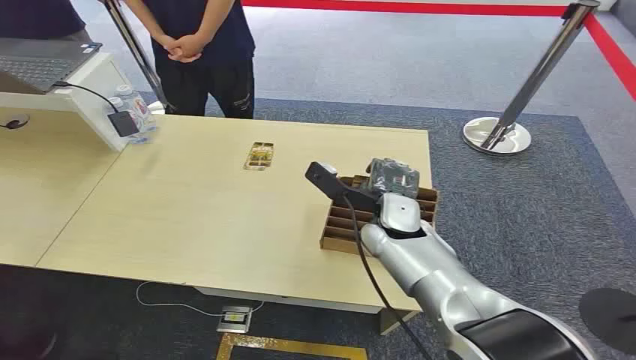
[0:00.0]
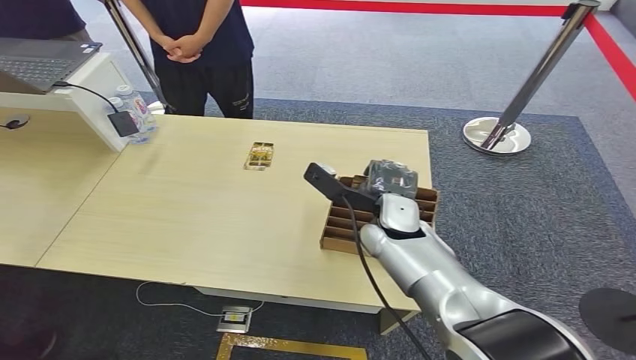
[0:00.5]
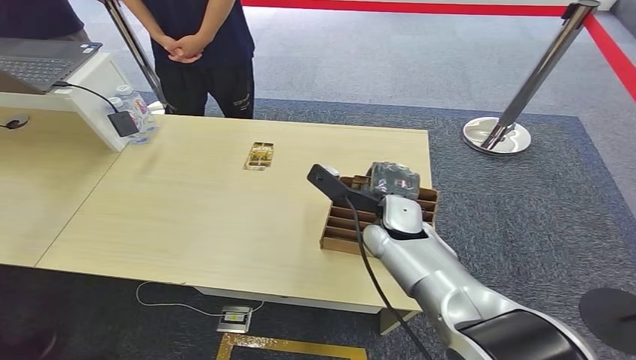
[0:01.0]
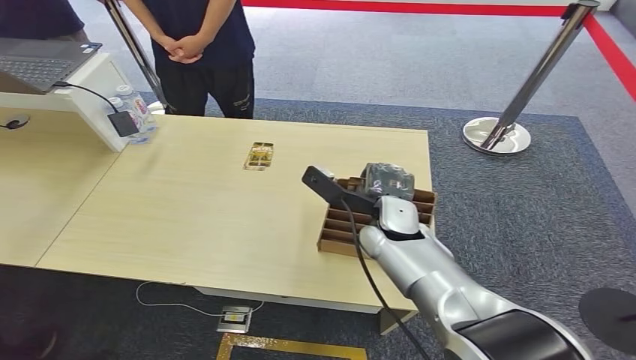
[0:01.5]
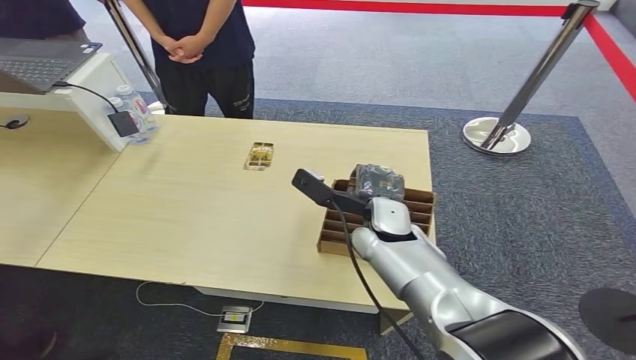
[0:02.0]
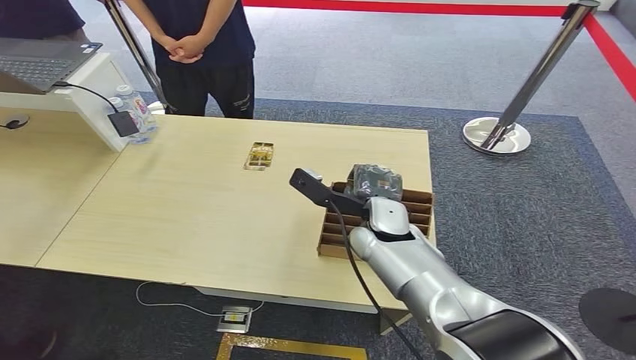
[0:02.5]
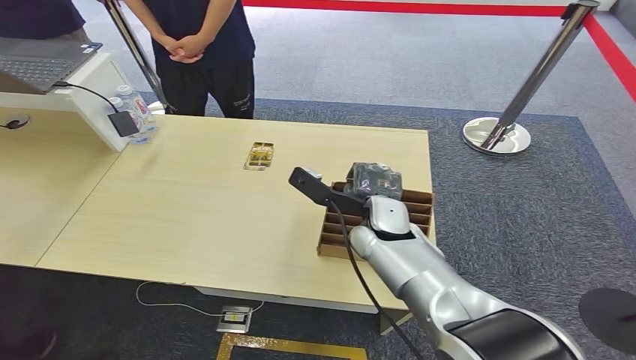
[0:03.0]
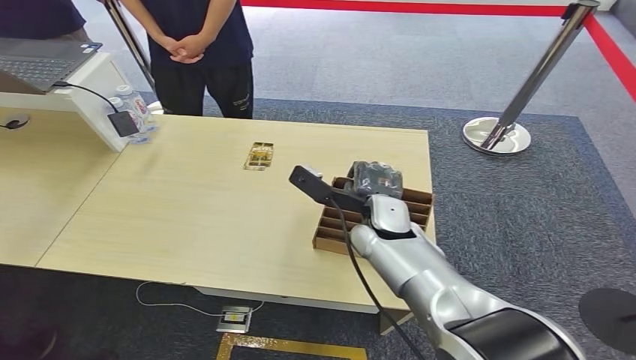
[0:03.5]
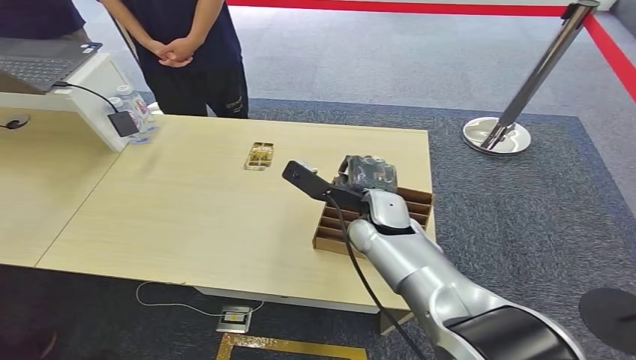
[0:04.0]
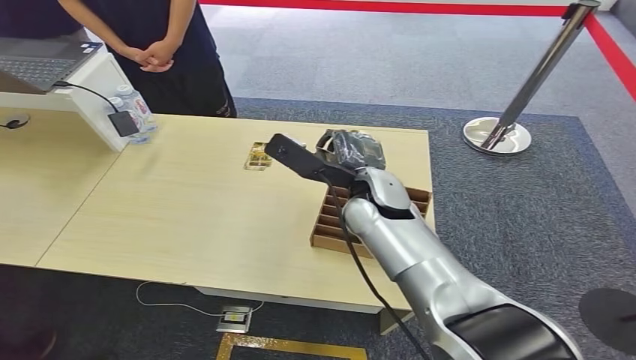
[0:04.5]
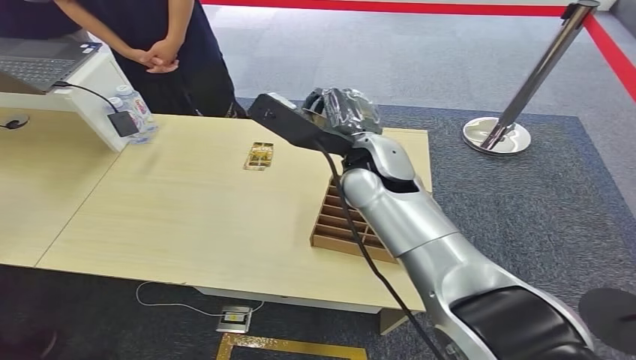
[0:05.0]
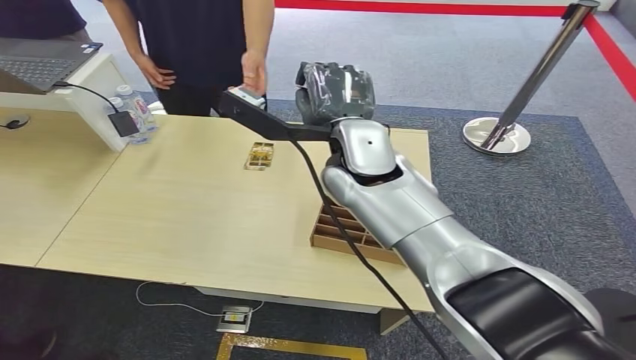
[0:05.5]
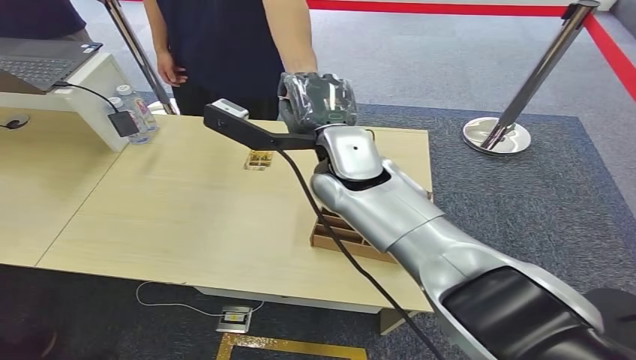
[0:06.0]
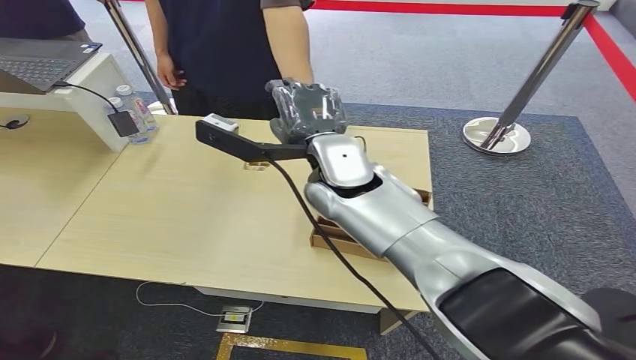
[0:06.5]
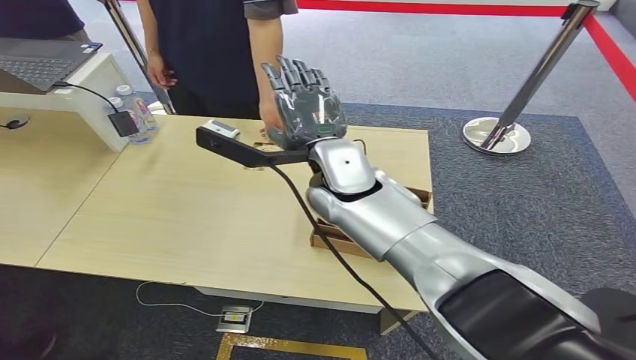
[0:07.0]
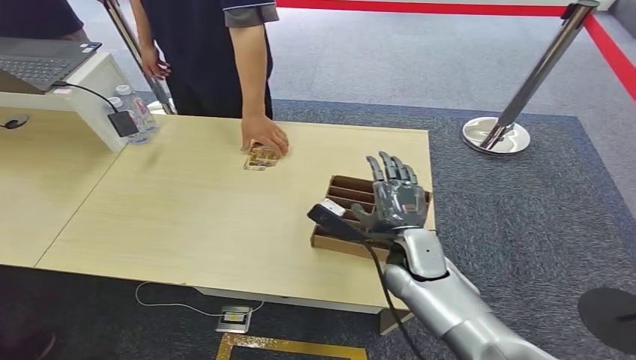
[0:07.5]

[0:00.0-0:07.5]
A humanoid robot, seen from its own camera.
Step, 0:00.0 to 0:04.5: Pick up the room card from the card holder.
Step, 0:05.0 to 0:07.5: Hand the room card to the target.
0:02.0 to 0:04.0: The hands move only a little.
0:04.0 to 0:05.5: The right hand shifts approximately 15 cm upward.
0:05.5 to 0:07.5: The right hand moves downward and to the right, about 20 cm.
